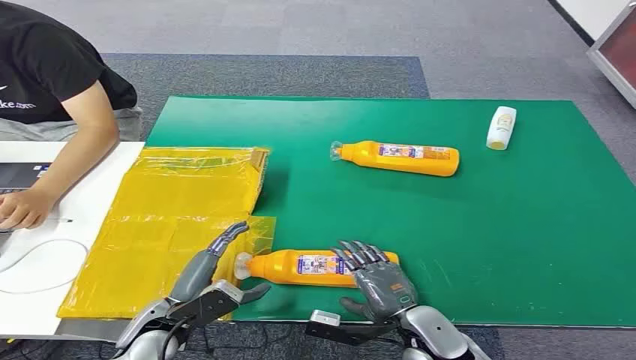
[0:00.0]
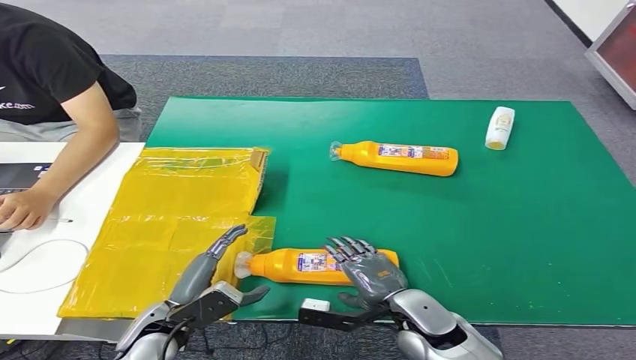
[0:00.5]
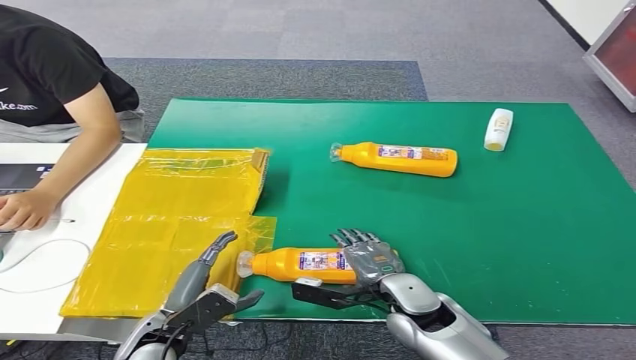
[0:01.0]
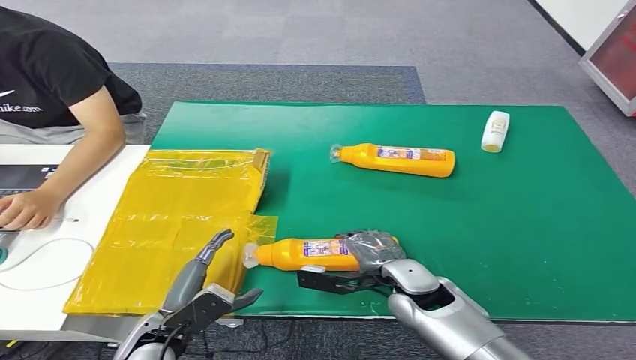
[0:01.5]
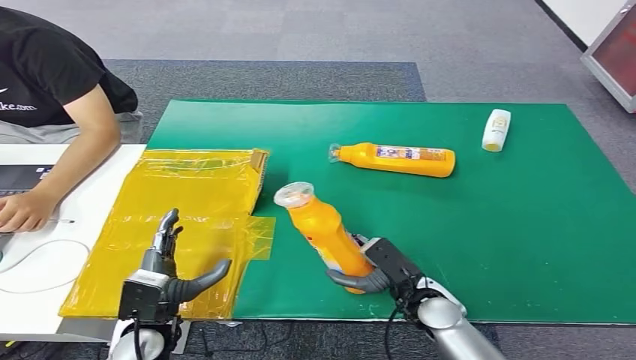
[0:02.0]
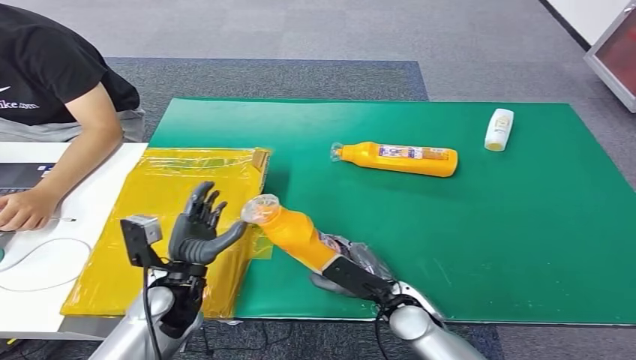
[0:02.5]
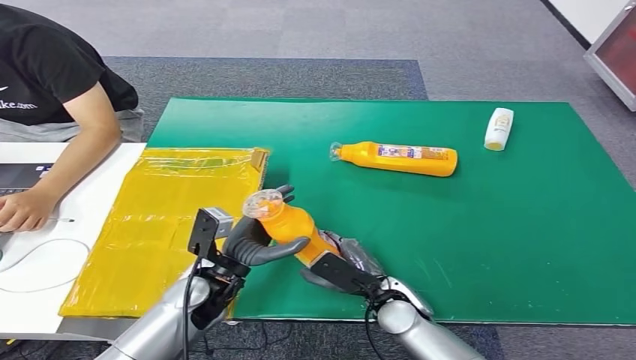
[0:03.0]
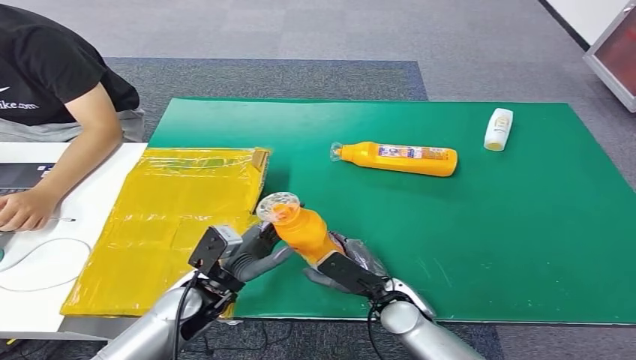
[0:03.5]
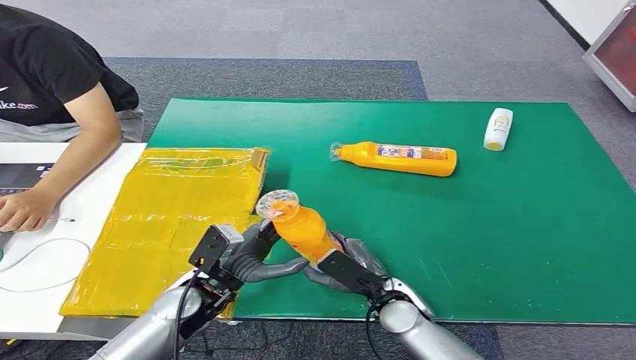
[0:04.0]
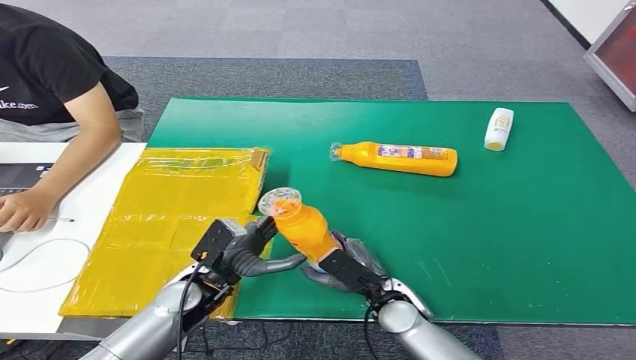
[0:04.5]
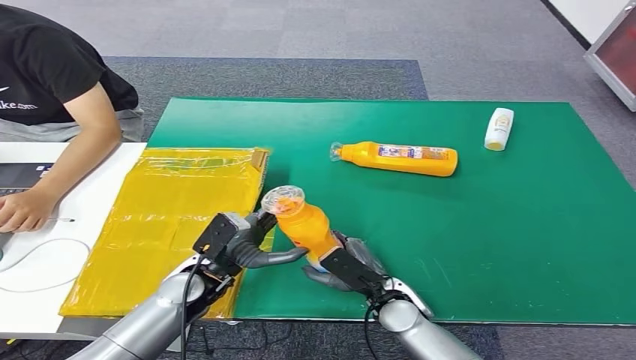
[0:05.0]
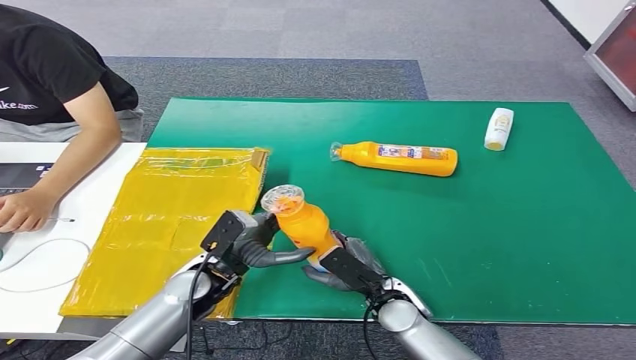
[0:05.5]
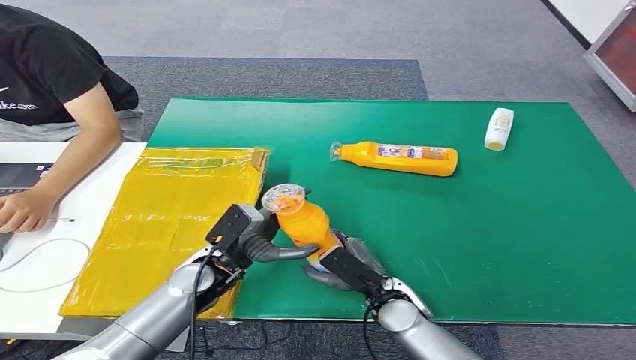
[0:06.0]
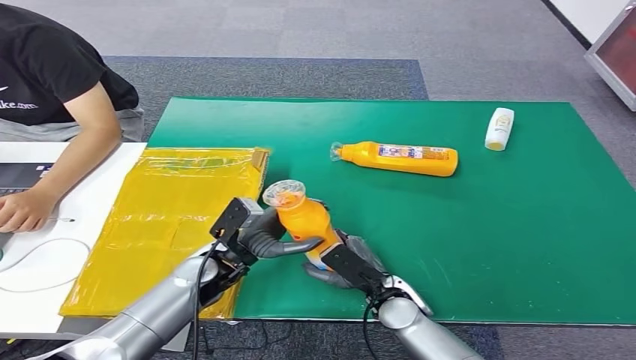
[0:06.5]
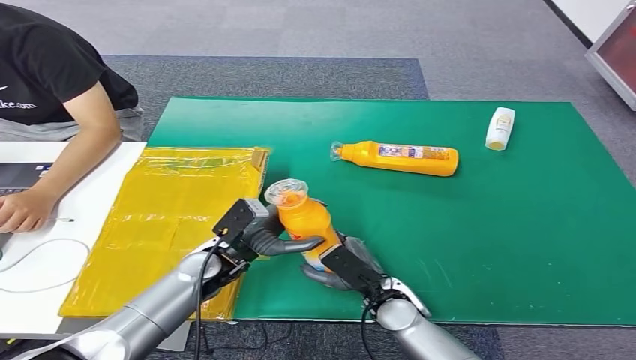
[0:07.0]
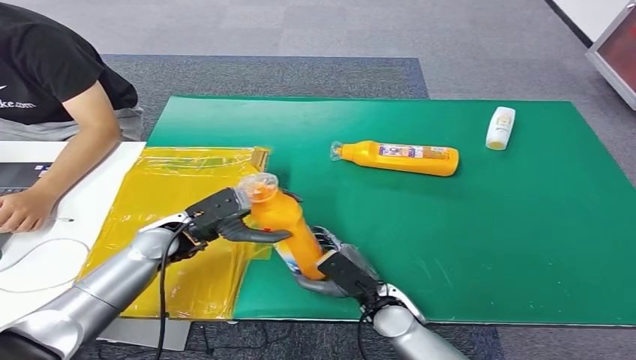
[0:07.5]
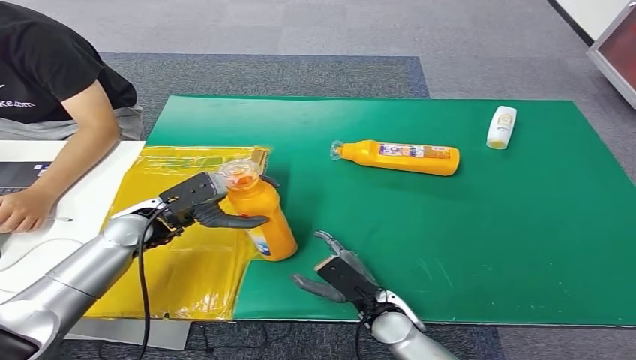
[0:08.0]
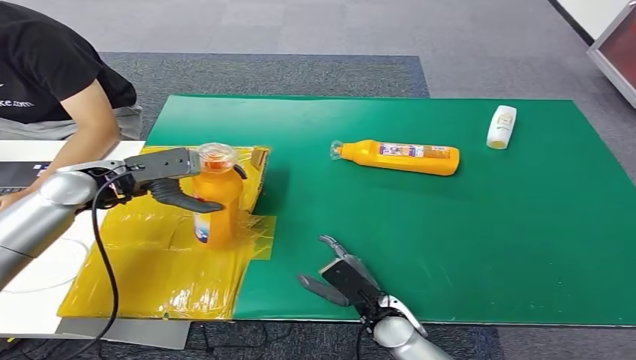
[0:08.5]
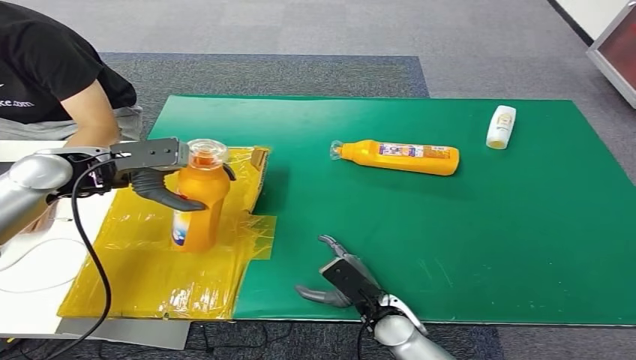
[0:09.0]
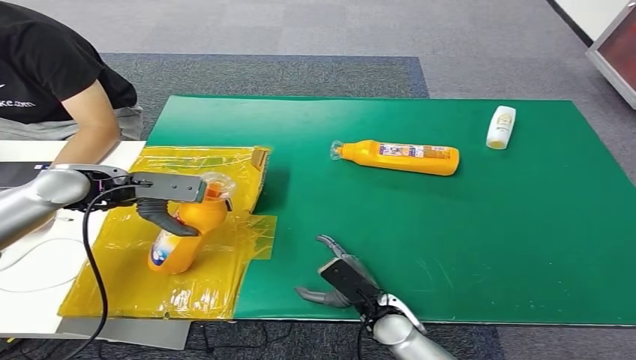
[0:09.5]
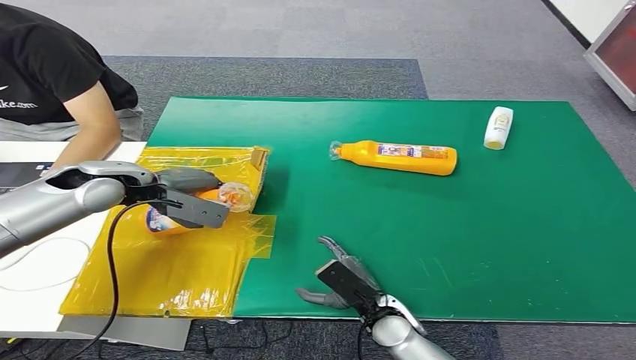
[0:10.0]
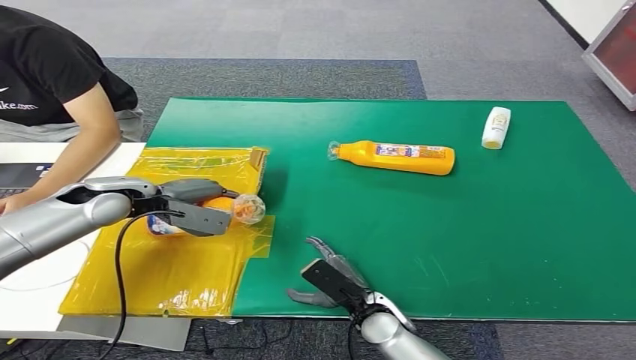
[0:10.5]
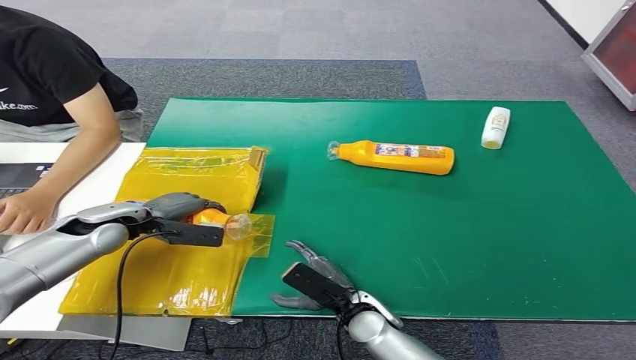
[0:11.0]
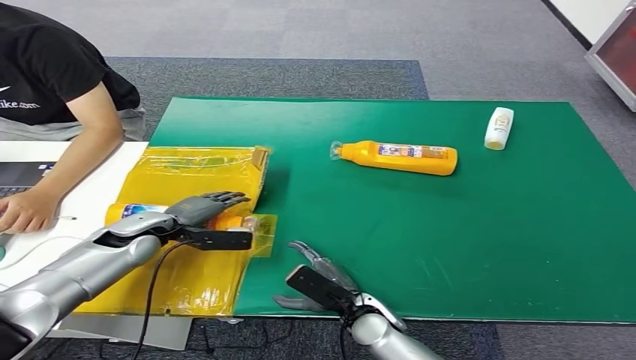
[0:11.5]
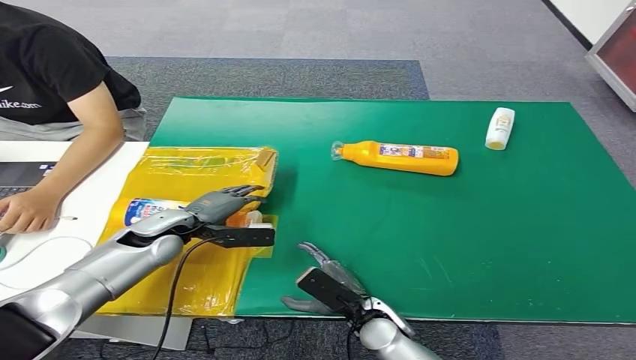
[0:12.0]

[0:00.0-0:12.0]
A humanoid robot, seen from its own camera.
Step, 0:00.0 to 0:05.0: Pick up the bottle from the table.
Step, 0:05.5 to 0:12.0: Turn the bottle to the front side.
0:02.0 to 0:04.0: The left hand is displaced to the right and forward by about 10 cm.
0:04.0 to 0:06.0: The hands make only small movements.
0:08.0 to 0:10.0: The left hand shifts some 10 cm upward and to the left.
0:10.0 to 0:12.0: The left hand moves downward and to the right, approximately 15 cm.

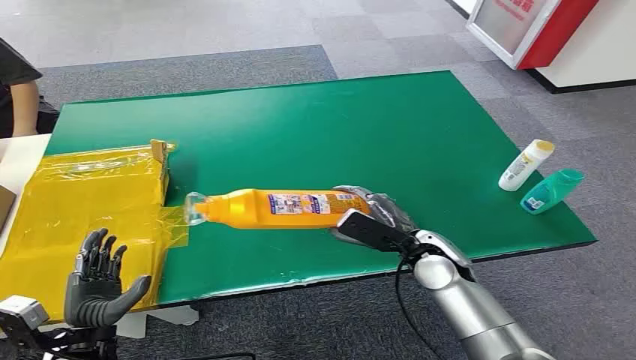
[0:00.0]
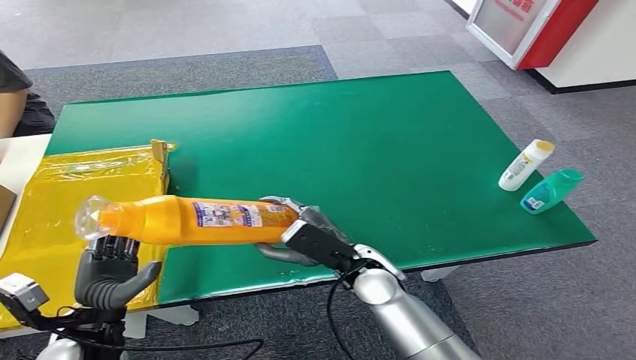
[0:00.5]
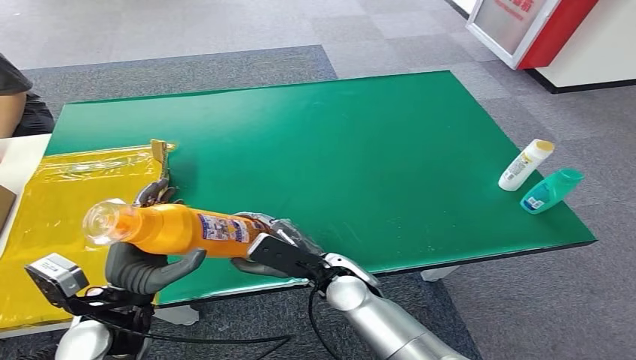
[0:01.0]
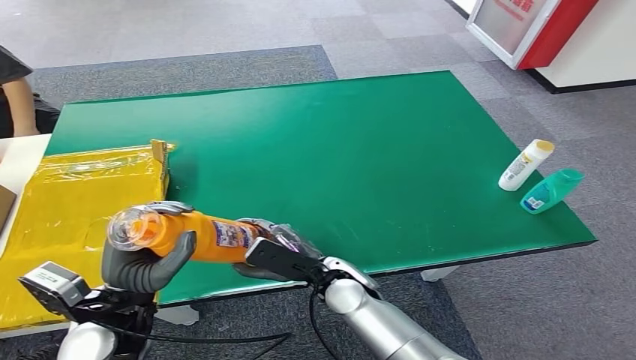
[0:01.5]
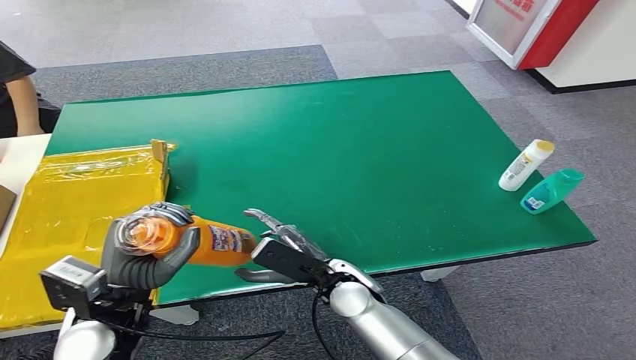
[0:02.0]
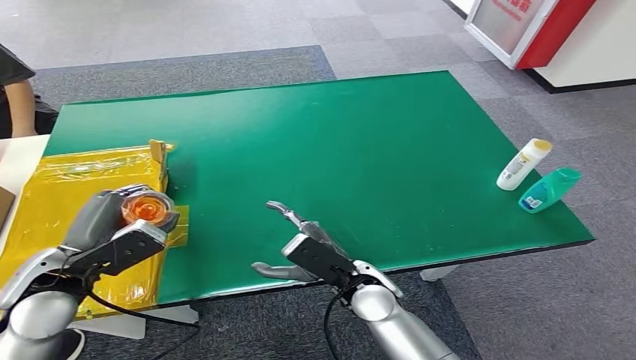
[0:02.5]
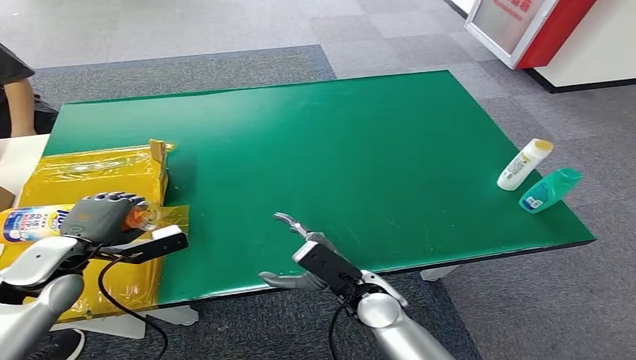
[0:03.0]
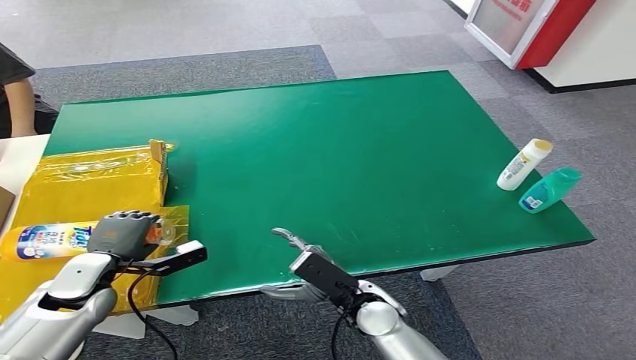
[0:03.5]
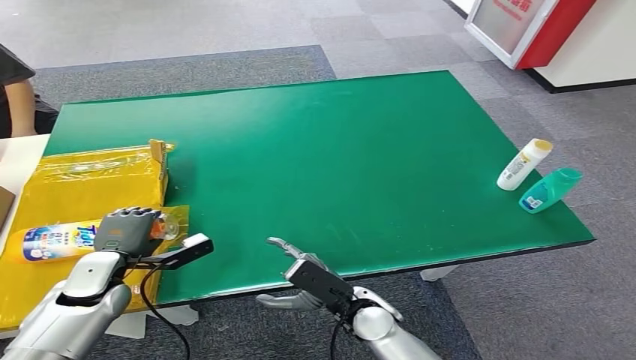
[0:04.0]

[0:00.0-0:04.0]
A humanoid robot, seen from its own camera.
Step, 0:00.0 to 0:00.5: Pick up the bottle from the table.
Step, 0:01.0 to 0:04.0: Turn the bottle to the front side.
0:02.0 to 0:04.0: The left hand is displaced forward, downward and to the left by about 15 cm. The right hand ends up roughly 5 cm from where it was.
